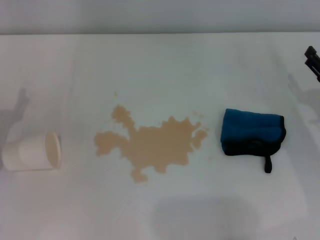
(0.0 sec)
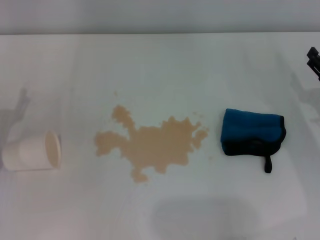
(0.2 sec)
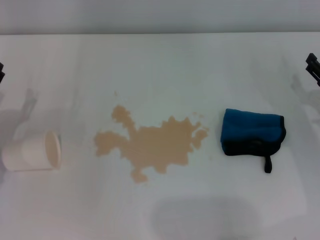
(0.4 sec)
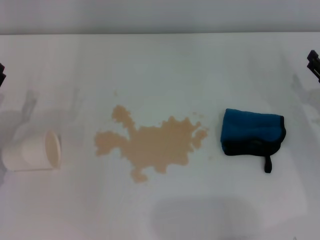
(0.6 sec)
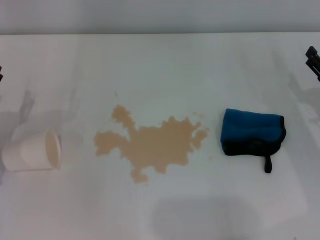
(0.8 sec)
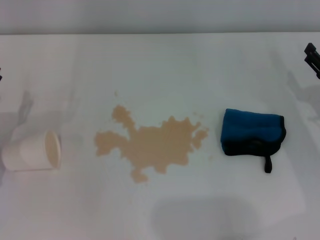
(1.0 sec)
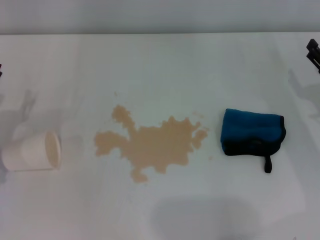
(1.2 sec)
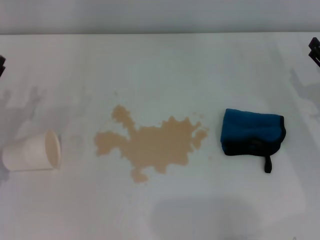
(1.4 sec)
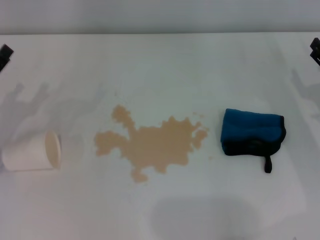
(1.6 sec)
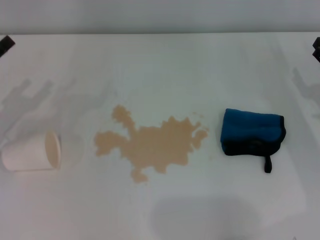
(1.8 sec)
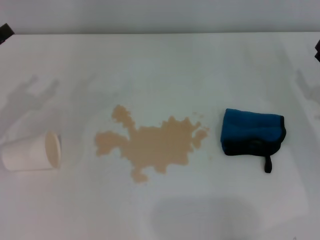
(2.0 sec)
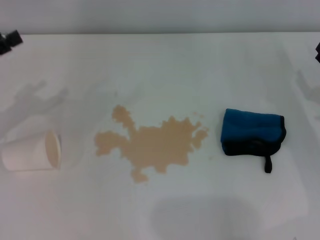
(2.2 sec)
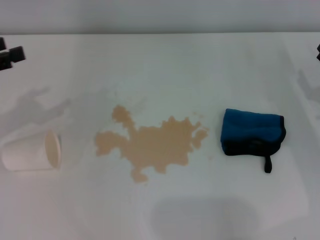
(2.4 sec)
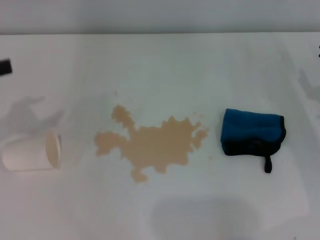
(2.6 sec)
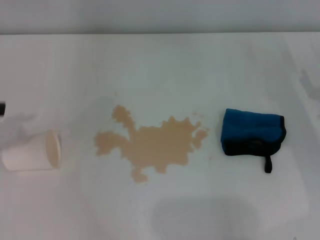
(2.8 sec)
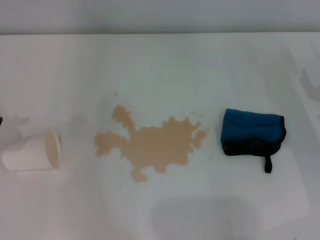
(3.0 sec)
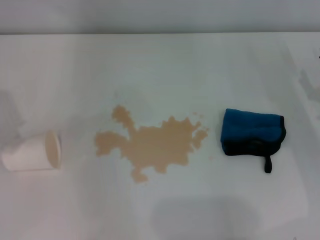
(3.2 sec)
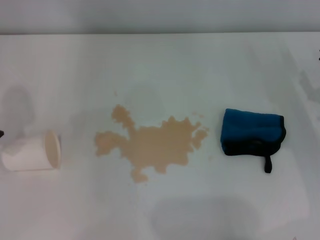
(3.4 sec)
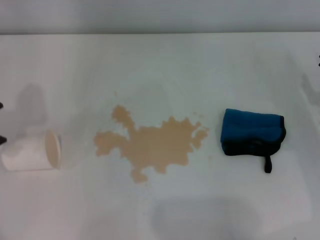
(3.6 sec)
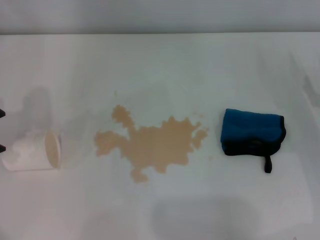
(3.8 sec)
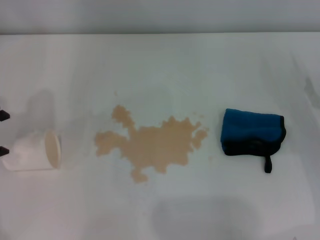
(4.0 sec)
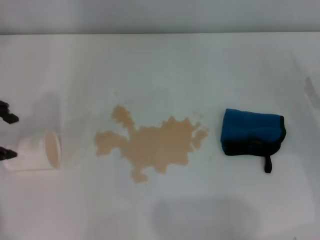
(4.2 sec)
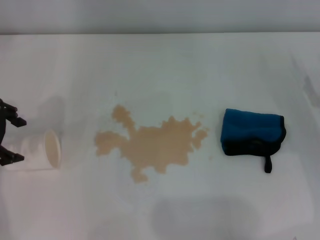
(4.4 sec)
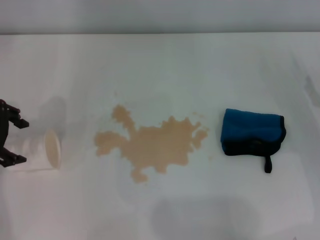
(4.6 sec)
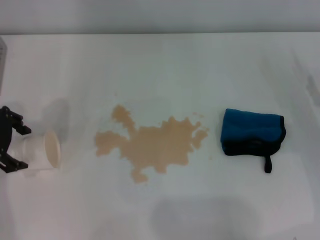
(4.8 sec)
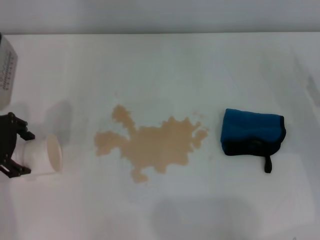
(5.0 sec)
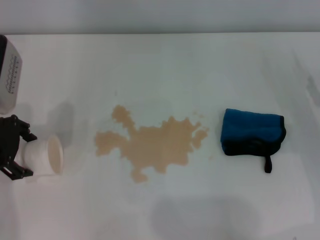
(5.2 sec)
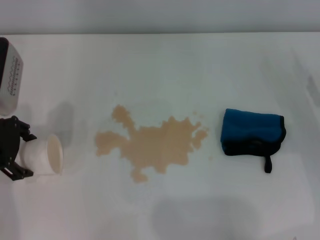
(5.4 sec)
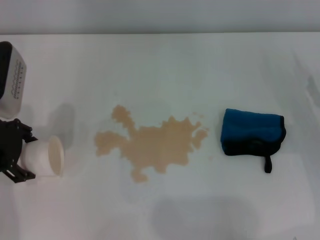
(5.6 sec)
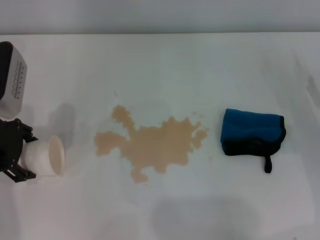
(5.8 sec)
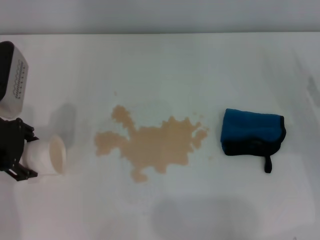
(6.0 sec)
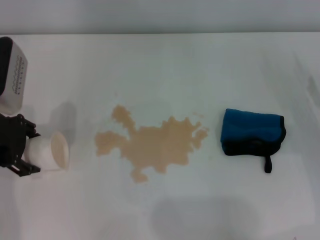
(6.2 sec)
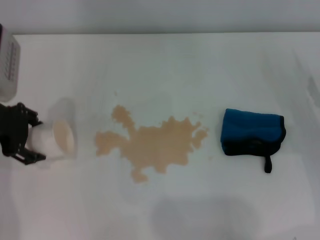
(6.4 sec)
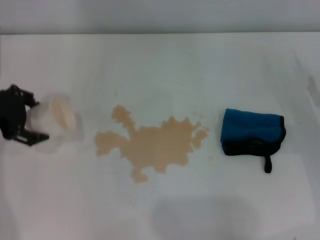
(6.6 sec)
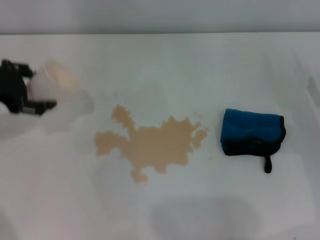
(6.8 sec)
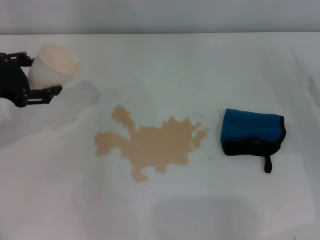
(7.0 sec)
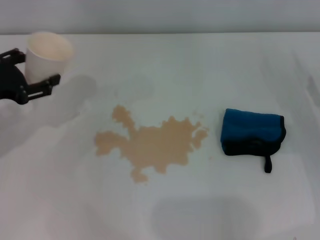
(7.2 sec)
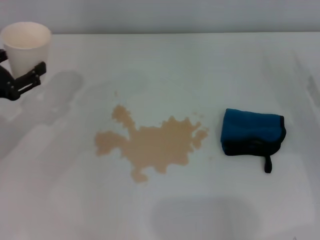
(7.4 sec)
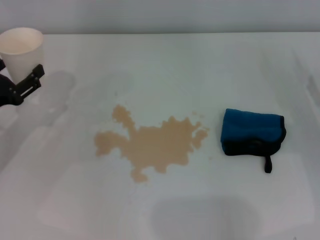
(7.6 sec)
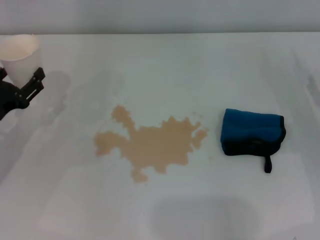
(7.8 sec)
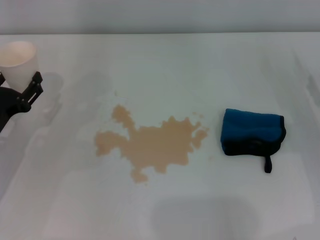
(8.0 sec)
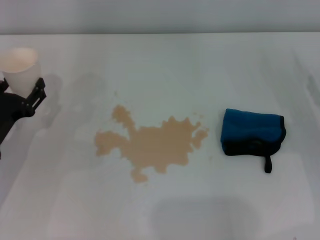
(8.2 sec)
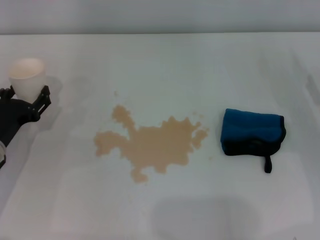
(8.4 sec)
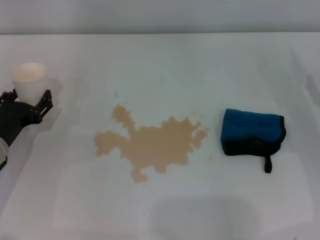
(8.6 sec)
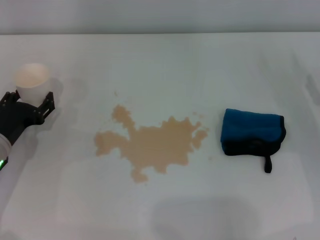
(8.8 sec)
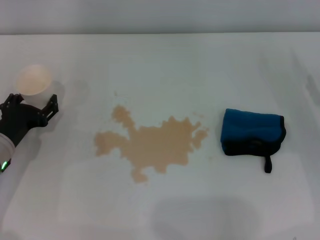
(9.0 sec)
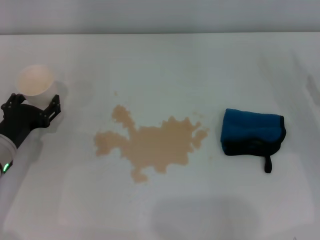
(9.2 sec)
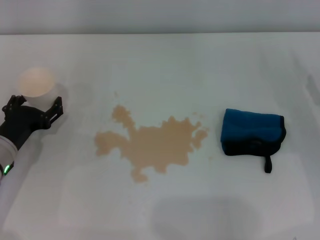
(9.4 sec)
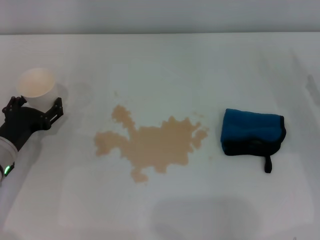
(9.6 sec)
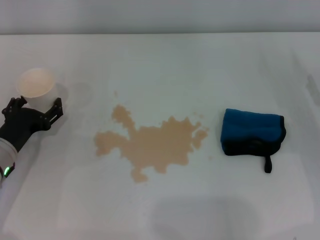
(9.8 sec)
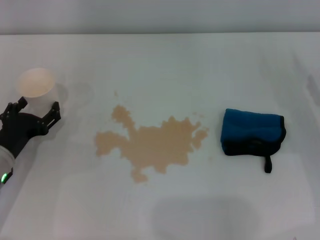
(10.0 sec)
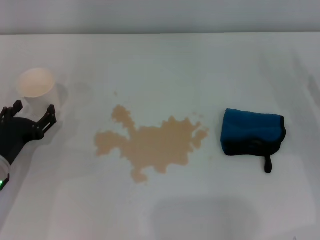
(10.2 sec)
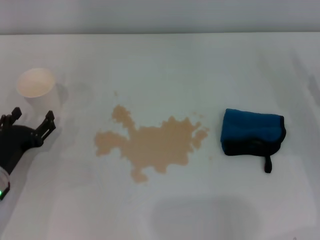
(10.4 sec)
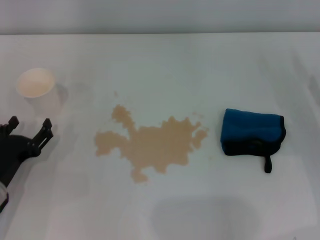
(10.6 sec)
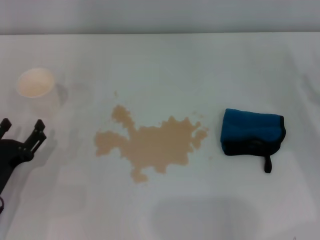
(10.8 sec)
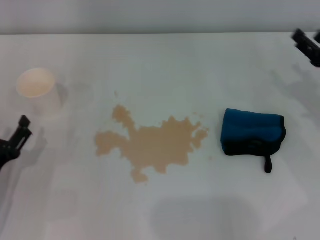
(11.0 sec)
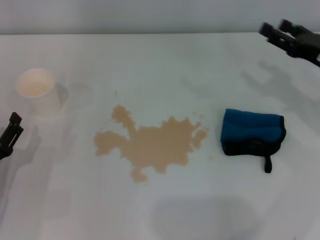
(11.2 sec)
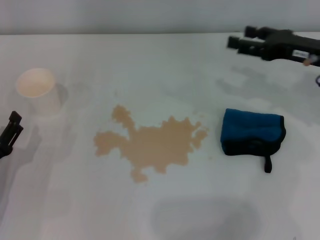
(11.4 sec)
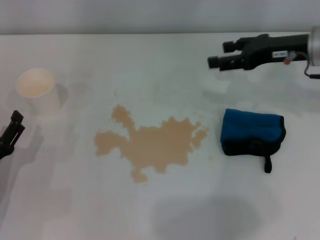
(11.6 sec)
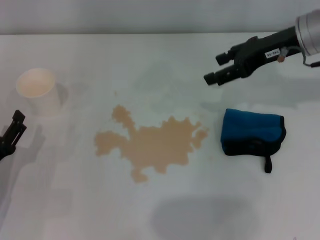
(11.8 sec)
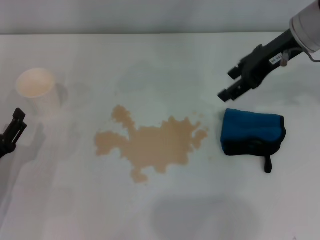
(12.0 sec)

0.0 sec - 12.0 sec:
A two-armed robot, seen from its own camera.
Step, 0.0 sec - 5.8 sec: Grasp the paper cup with the left gripper.
Step, 6.0 sec - 9.4 sec: Stand the paper cup upright with the left gripper.
3.0 sec - 4.4 sec: The left gripper shifts approximately 10 cm to the right.
4.4 sec - 6.0 sec: The grippers make only small movements.
6.0 sec - 7.6 sec: The left gripper goes about 10 cm downward and backward.
7.6 sec - 9.0 sec: The left gripper shifts about 5 cm downward.
9.0 sec - 10.4 sec: The left gripper shifts some 5 cm backward.
10.4 sec - 12.0 sec: The right gripper goes roughly 25 cm upward, to the left and forward.

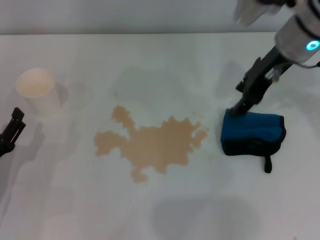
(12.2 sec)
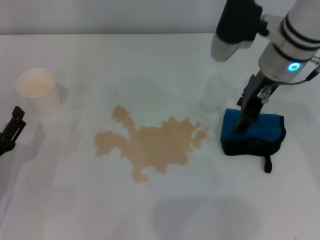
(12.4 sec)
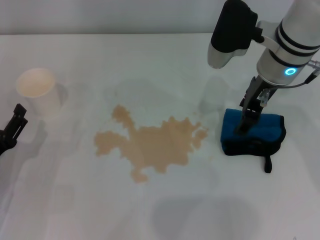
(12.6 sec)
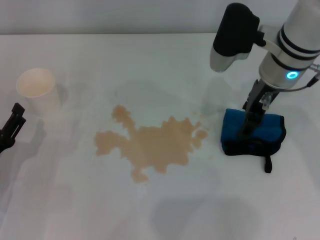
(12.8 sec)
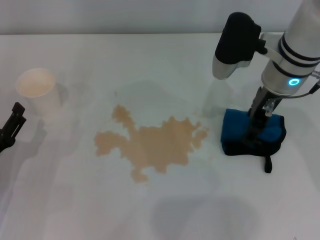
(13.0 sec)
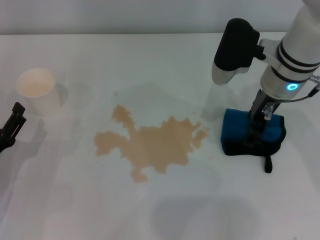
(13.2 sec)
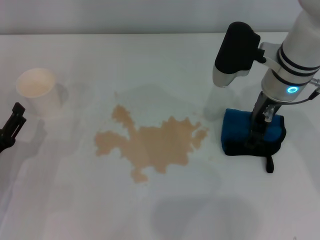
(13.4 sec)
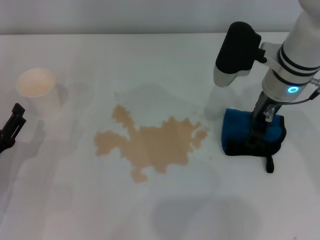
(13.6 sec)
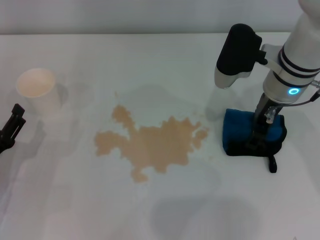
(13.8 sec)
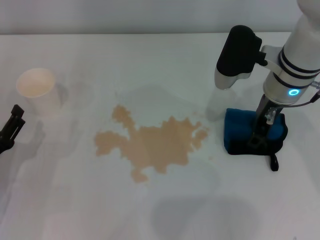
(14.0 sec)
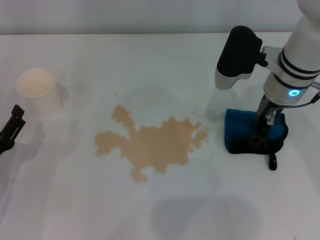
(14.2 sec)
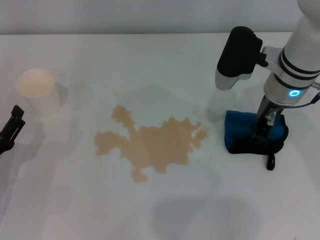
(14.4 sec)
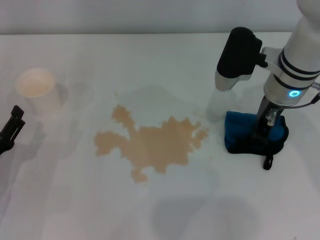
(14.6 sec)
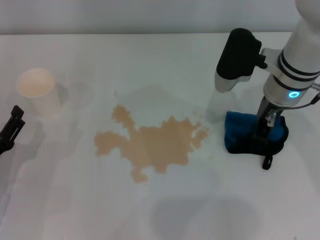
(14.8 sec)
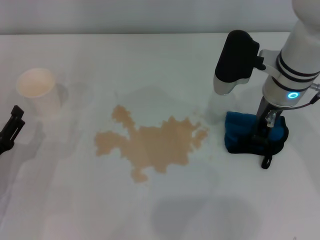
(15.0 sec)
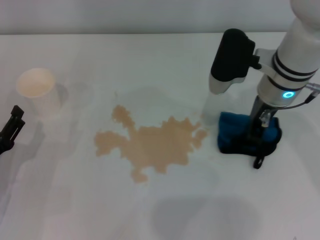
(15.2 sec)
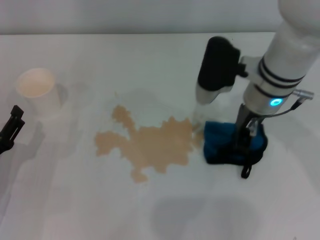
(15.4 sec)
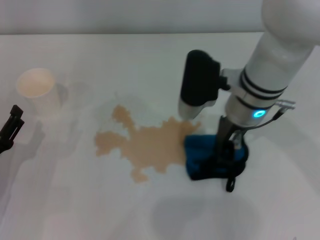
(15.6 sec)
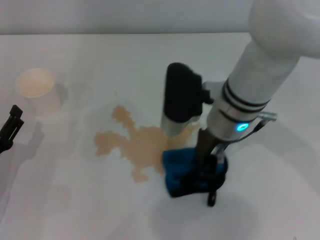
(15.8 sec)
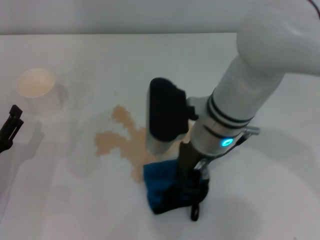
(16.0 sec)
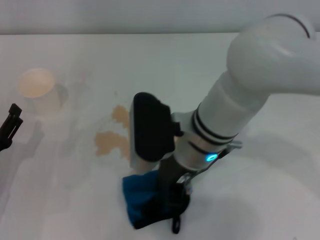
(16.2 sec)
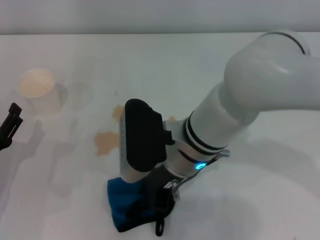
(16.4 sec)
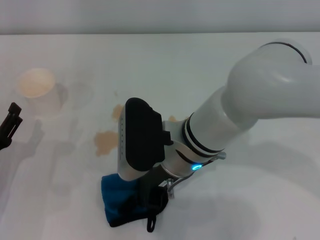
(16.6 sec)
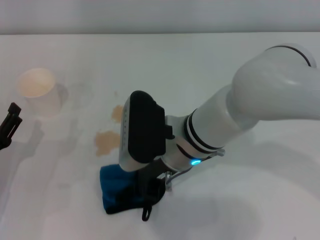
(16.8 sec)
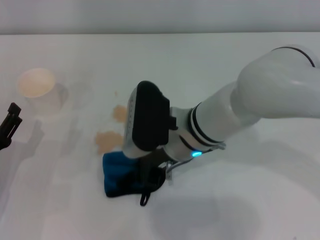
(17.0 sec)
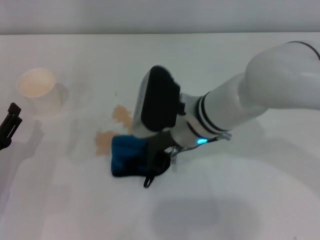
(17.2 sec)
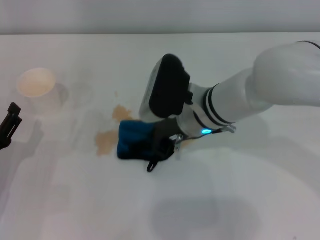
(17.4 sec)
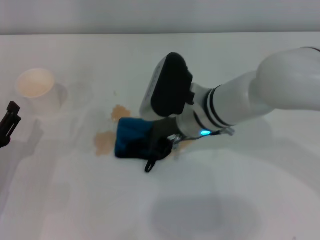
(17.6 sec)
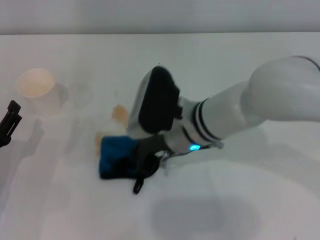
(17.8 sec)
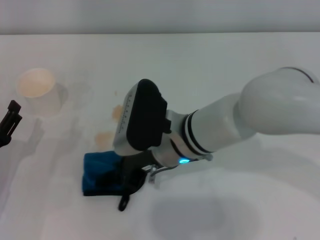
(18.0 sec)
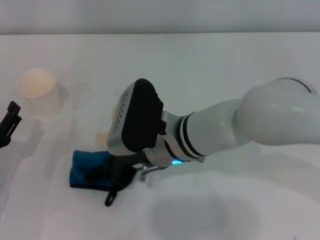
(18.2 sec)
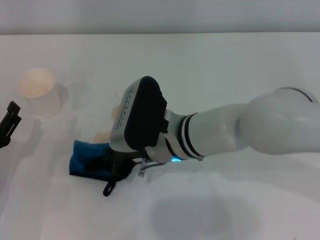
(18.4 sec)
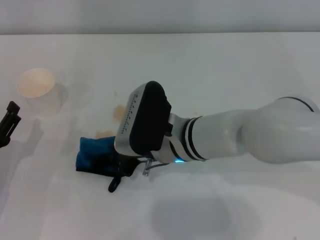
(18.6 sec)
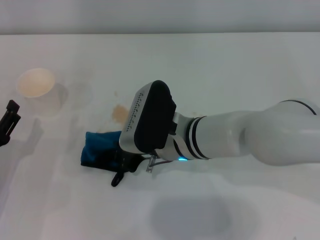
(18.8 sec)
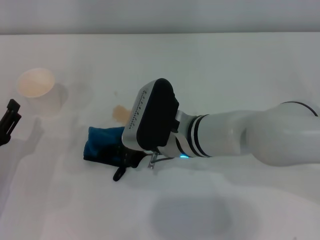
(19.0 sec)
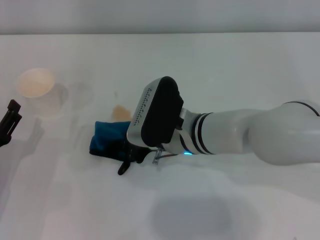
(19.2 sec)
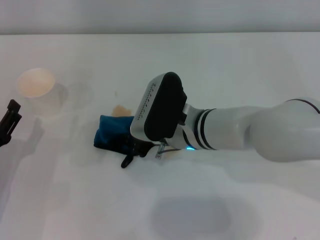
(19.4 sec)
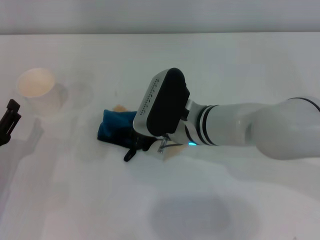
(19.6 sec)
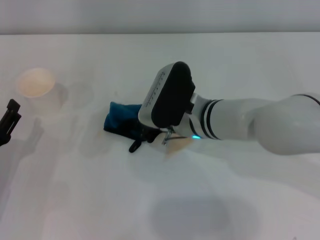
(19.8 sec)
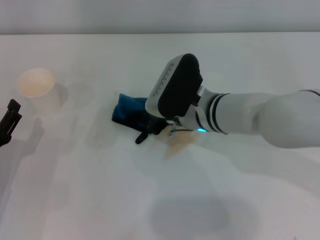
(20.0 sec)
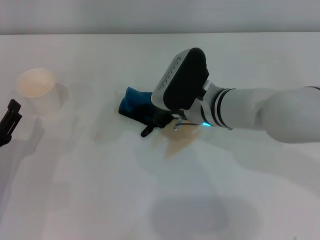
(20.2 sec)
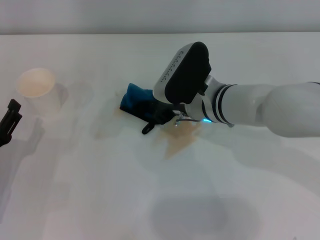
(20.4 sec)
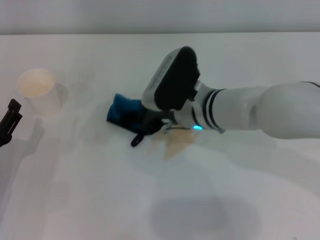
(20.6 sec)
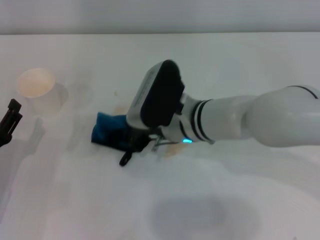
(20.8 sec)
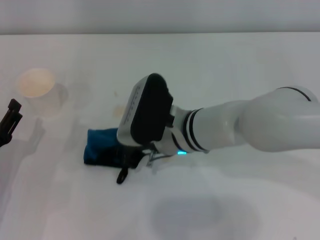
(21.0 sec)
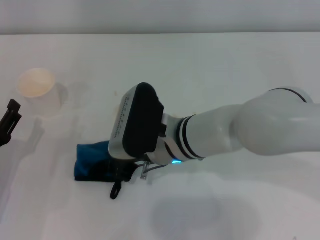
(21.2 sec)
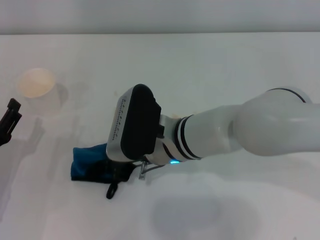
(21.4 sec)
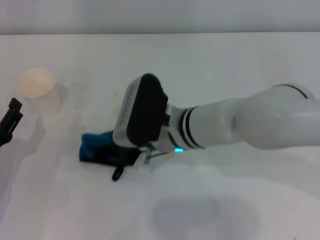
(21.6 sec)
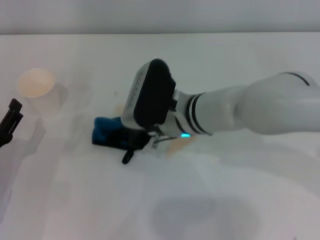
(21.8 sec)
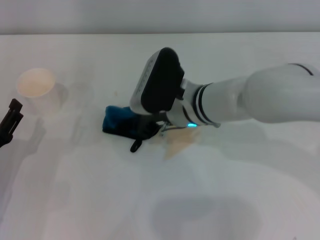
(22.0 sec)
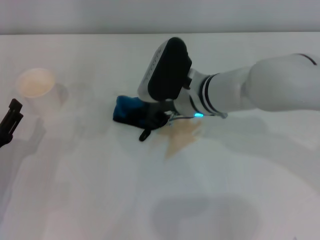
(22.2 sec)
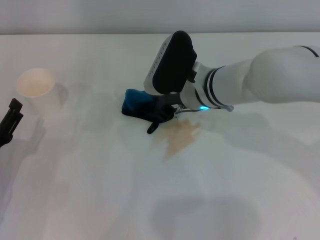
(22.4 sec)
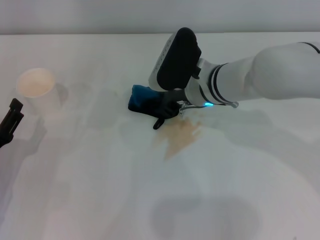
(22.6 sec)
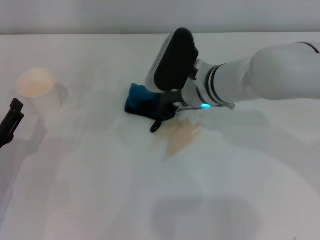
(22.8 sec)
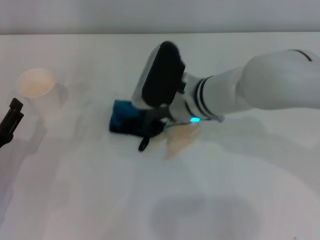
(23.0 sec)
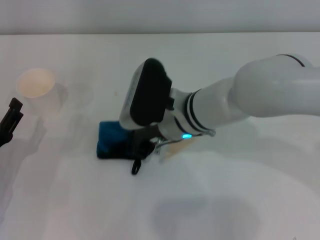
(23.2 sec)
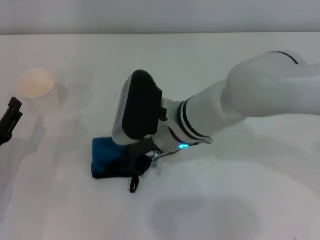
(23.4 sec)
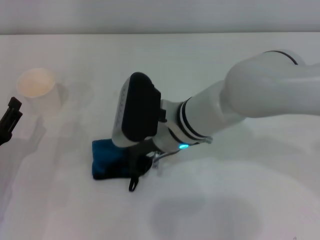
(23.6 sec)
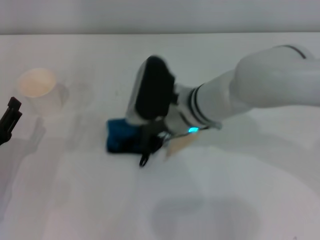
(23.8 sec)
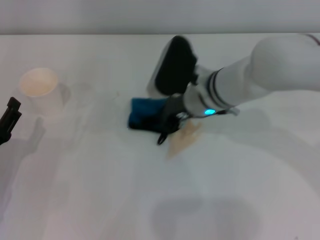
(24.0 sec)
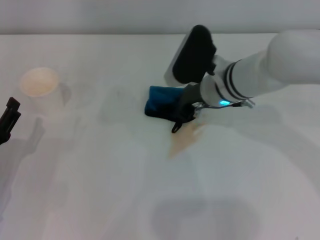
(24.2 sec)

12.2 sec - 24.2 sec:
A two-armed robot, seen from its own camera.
Step, 12.2 sec - 14.6 sec: Grasp the rag with the right gripper.
12.2 sec - 13.8 sec: The right gripper travels downward by about 5 cm.
13.8 sec - 15.2 sec: The right gripper closes.
15.2 sec - 16.6 sec: The right gripper travels to the left and backward by approximately 15 cm.
18.2 sec - 19.8 sec: The right gripper shifts by some 5 cm.
19.8 sec - 21.2 sec: The right gripper shifts by some 5 cm.
21.2 sec - 22.6 sec: The right gripper shifts roughly 10 cm forward and to the right.
22.6 sec - 24.2 sec: The right gripper moves approximately 5 cm to the left and comes back.
